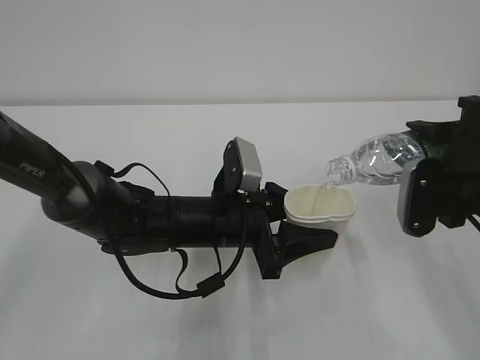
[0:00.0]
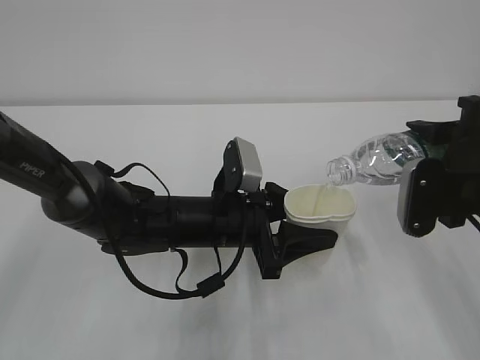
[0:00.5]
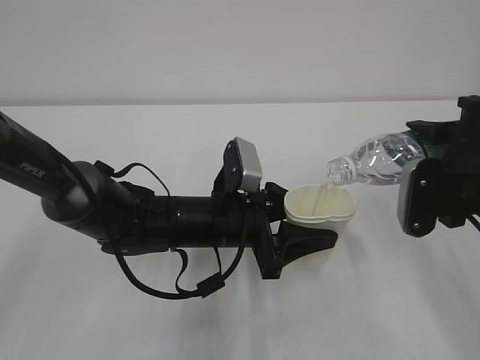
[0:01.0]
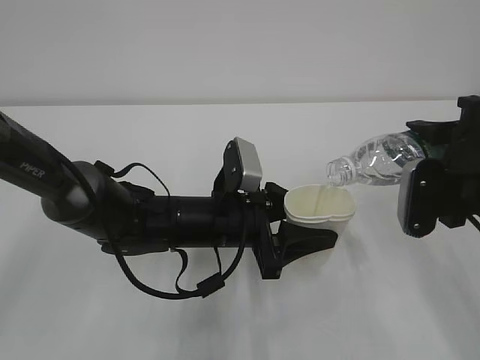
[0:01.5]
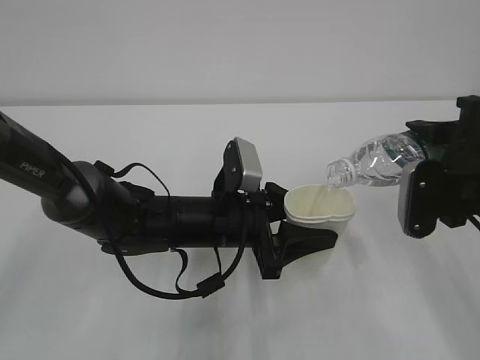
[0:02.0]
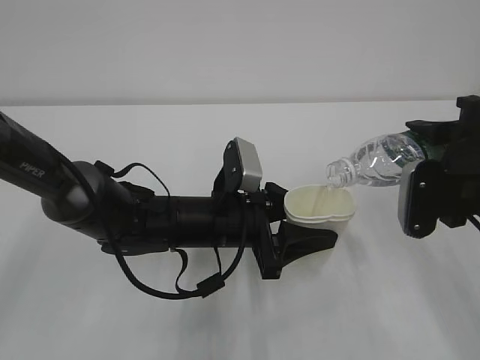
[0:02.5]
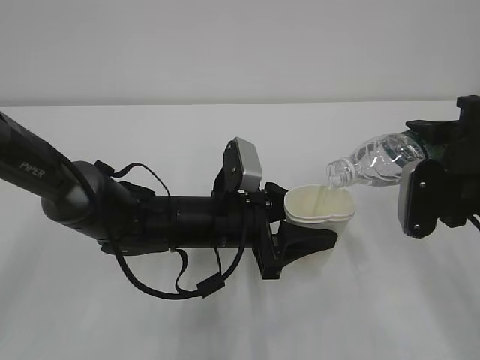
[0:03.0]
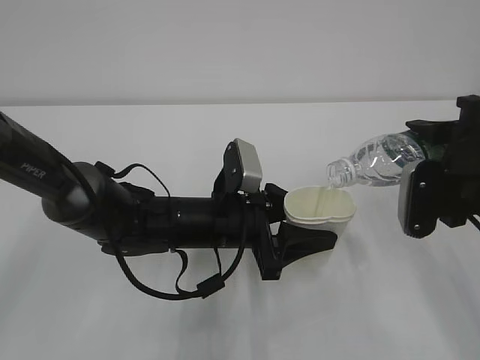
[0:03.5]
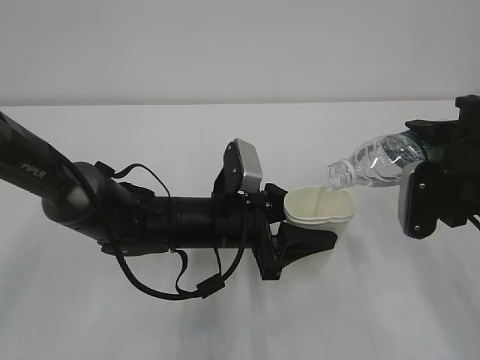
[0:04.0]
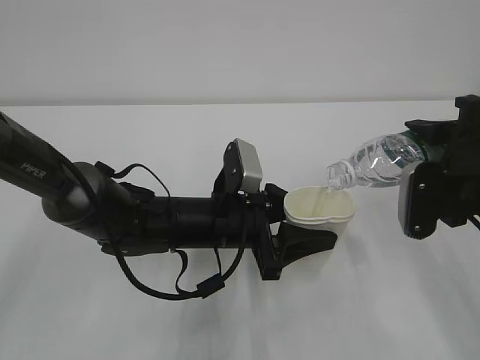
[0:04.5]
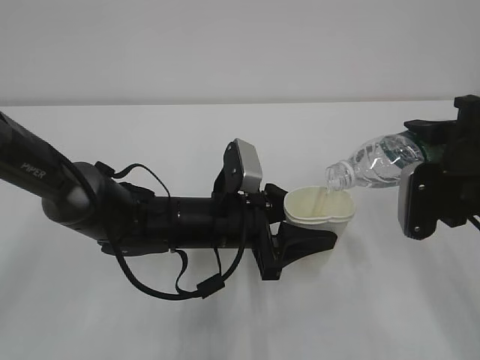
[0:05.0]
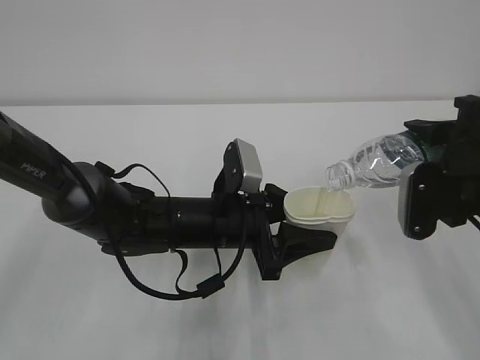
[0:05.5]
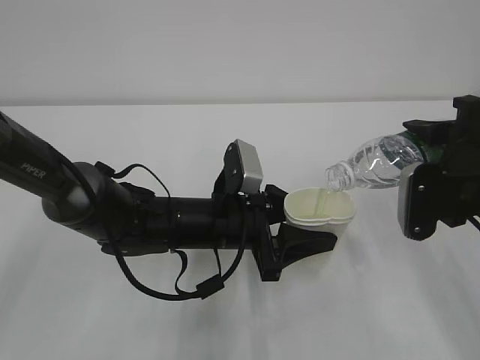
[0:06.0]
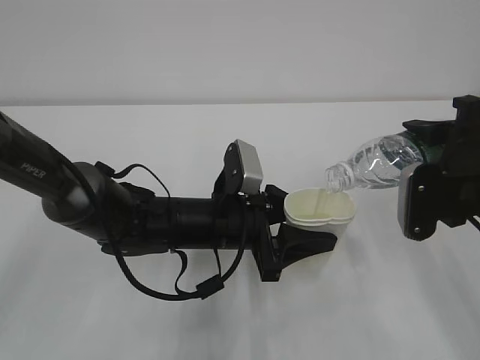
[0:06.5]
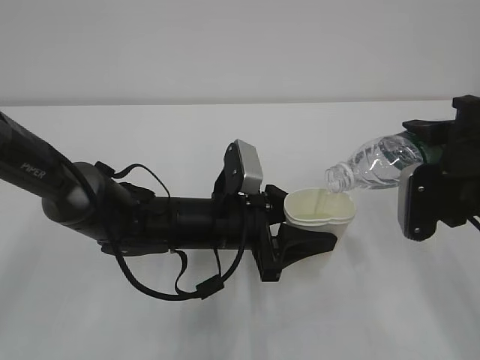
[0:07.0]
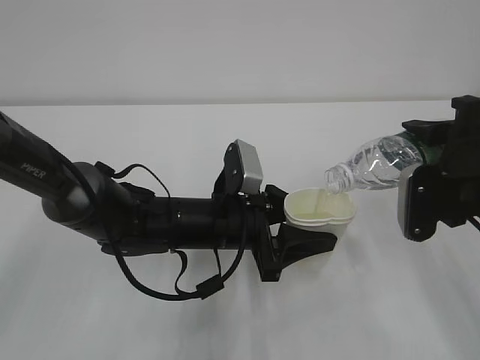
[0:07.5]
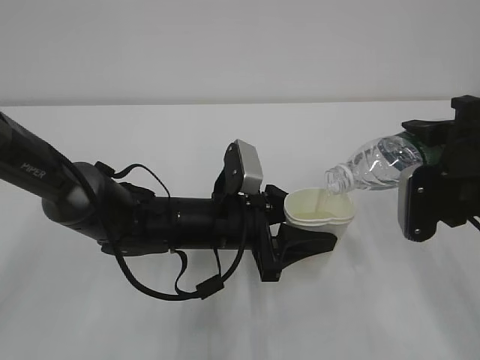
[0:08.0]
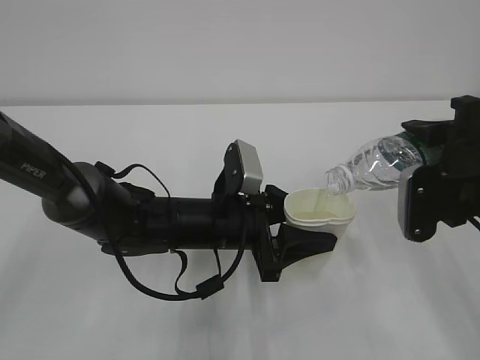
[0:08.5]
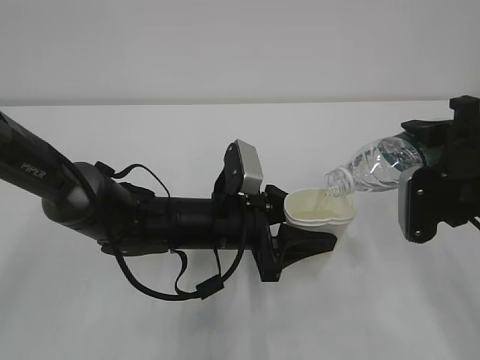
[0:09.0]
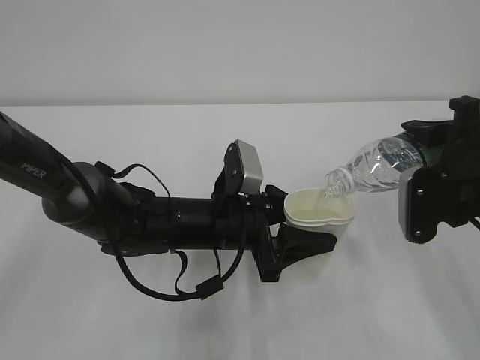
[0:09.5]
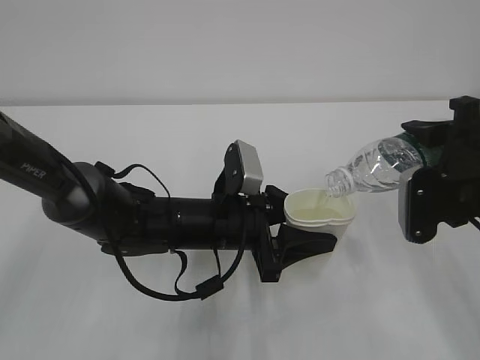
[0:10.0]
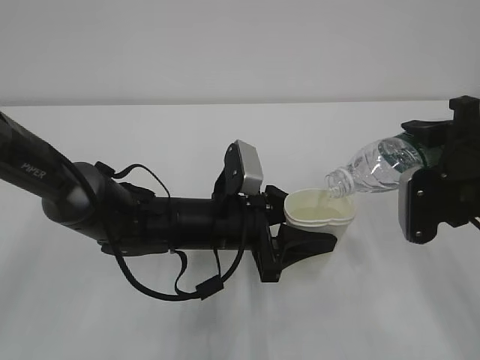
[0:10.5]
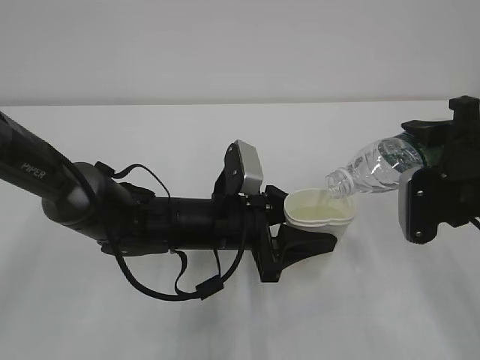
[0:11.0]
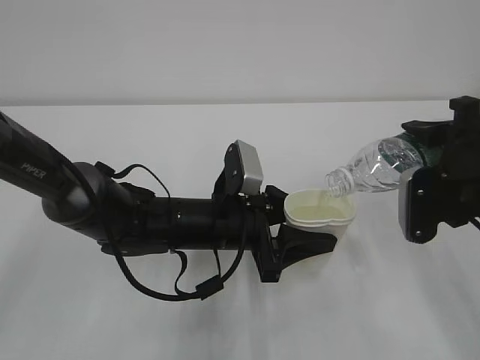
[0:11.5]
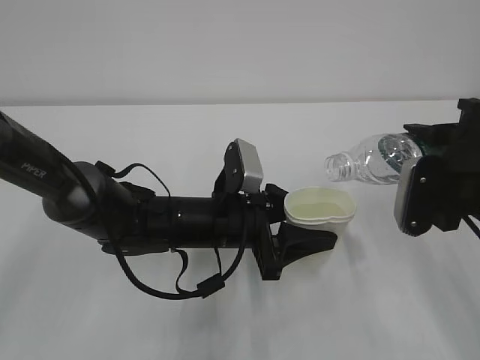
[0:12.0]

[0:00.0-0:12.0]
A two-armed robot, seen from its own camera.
0:00.0 to 0:08.0: Both grippers stay put.
0:08.0 to 0:10.0: Both grippers stay put.
0:10.0 to 0:12.0: The grippers make only small movements.

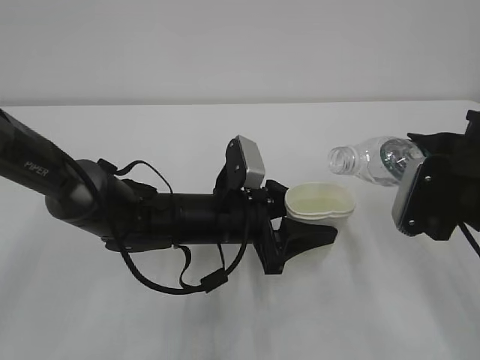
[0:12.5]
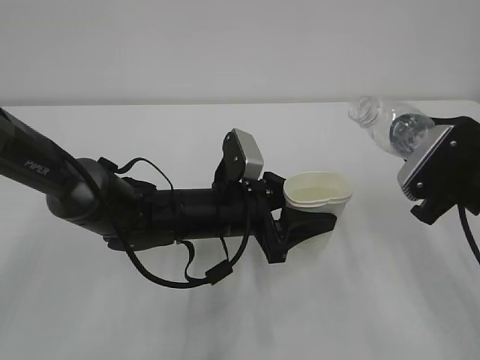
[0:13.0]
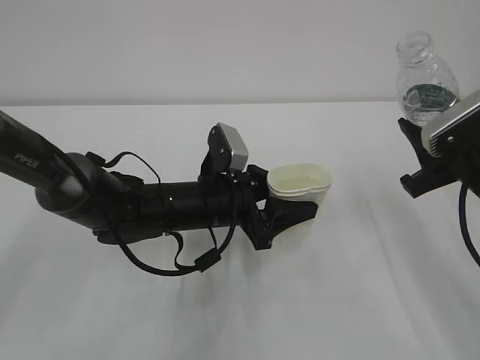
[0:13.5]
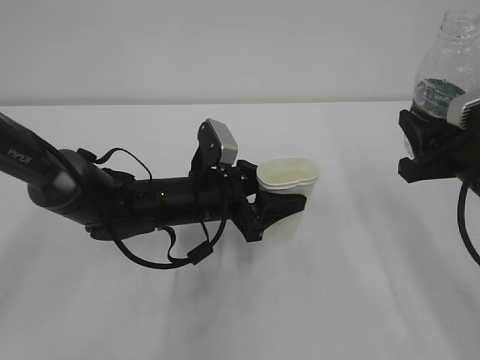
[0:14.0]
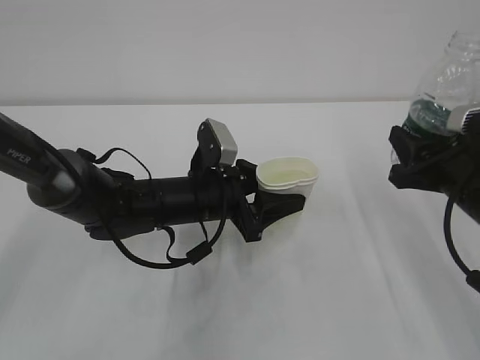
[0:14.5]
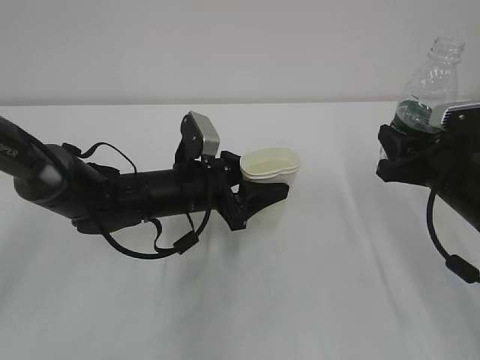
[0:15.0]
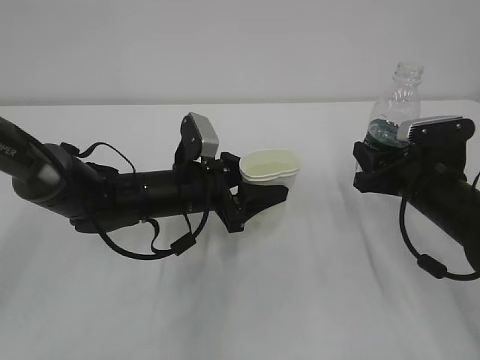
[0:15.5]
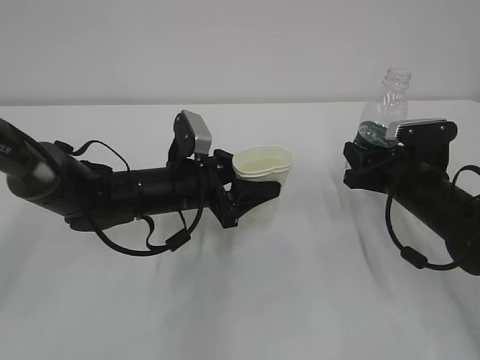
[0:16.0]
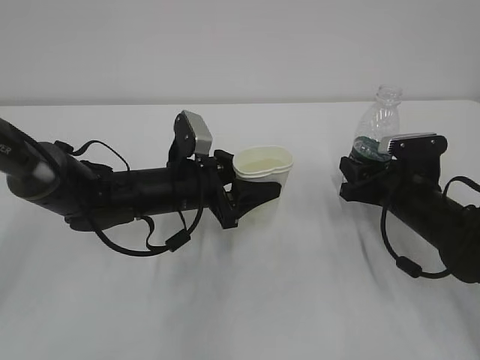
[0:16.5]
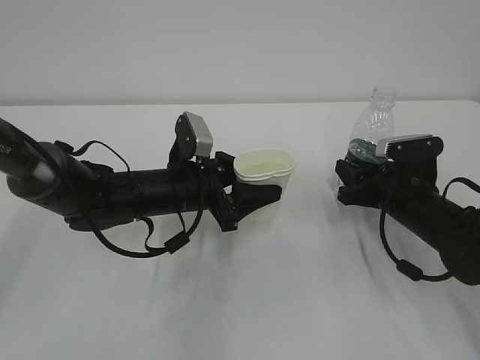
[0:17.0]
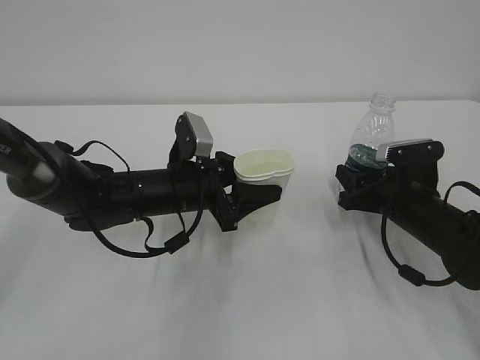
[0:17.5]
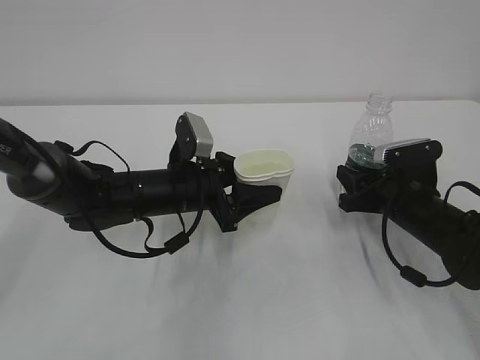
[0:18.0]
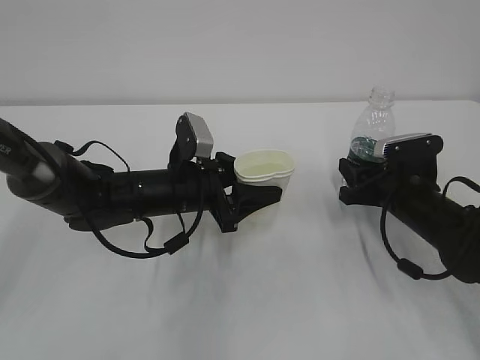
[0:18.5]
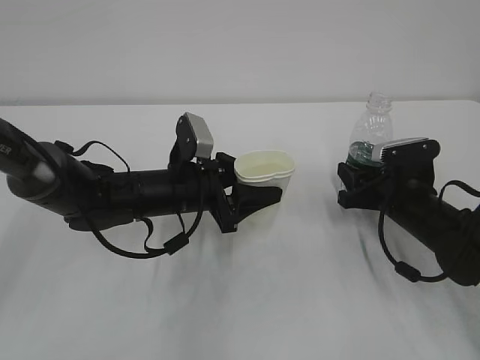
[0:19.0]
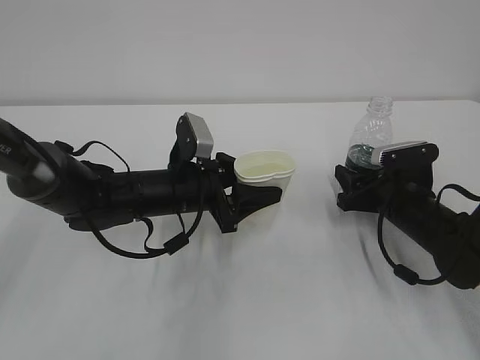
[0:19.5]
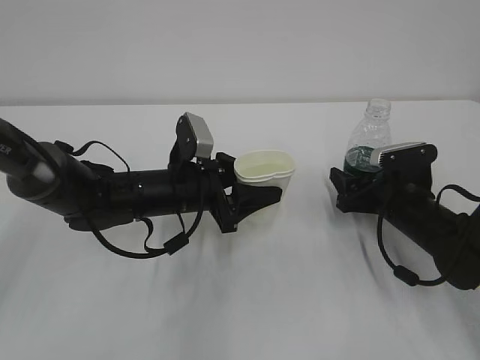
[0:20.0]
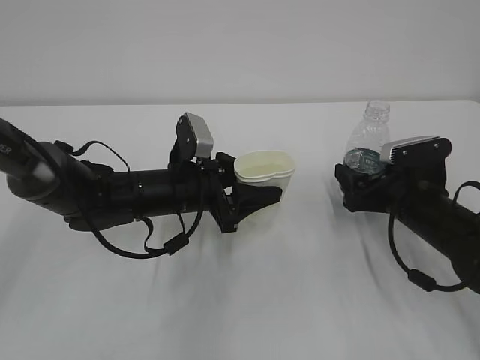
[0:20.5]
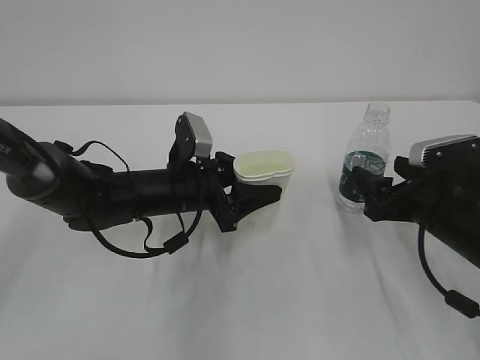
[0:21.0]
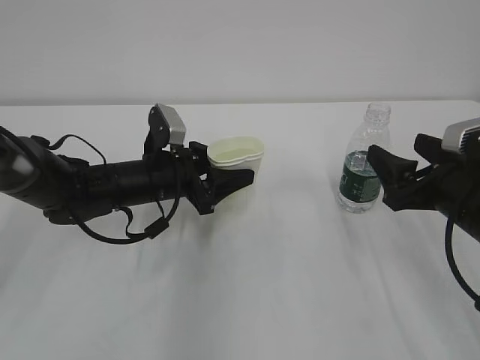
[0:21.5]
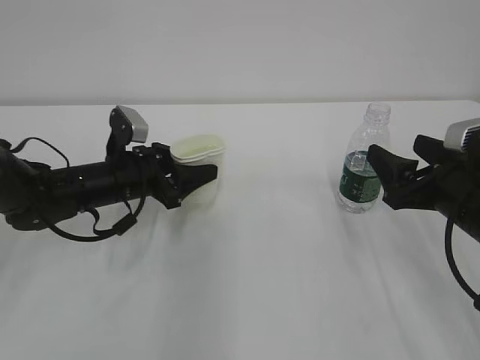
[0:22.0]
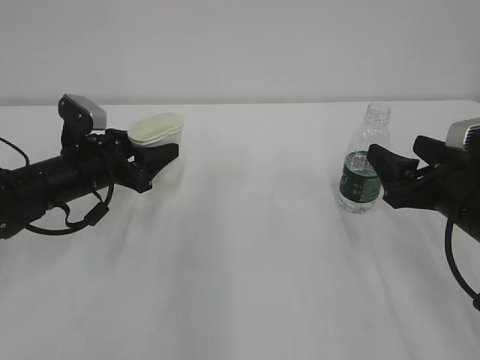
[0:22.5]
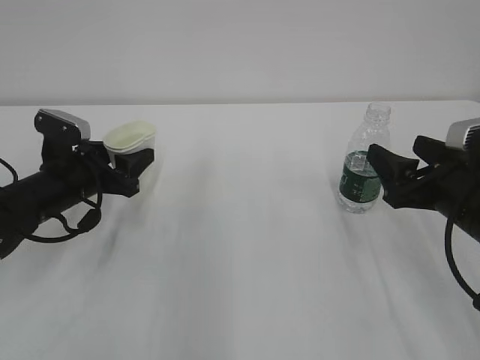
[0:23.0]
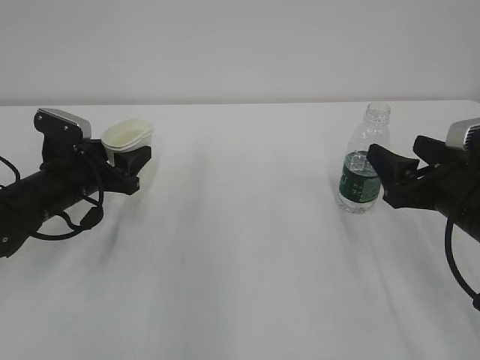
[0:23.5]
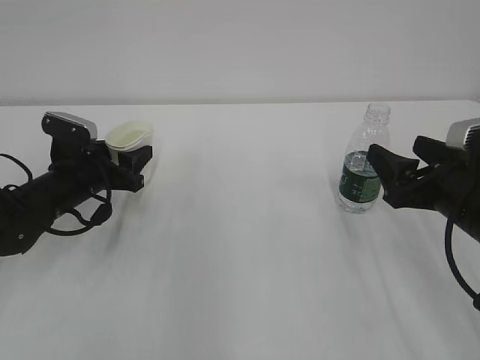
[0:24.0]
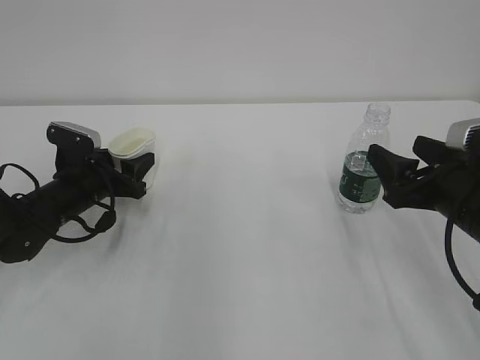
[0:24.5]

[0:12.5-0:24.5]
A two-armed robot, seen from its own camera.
0:14.5 to 0:16.5: The right gripper goes approximately 10 cm downward and forward.
0:16.5 to 0:18.5: Neither gripper changes place.
0:18.5 to 0:20.5: The right gripper opens up.
0:20.5 to 0:22.5: The left gripper shifts some 10 cm to the left, while the right gripper moves upward and backward, some 10 cm.
0:22.5 to 0:24.5: The left gripper moves approximately 5 cm.

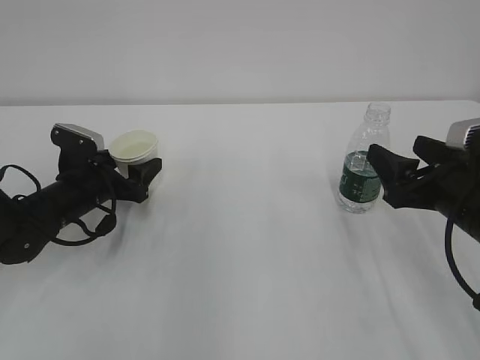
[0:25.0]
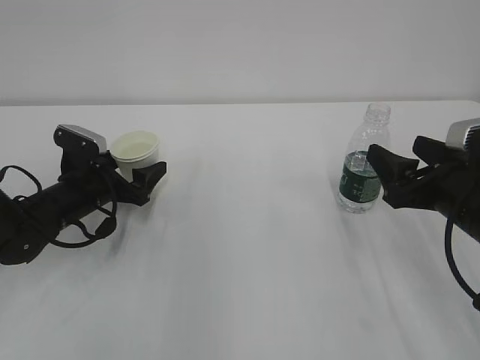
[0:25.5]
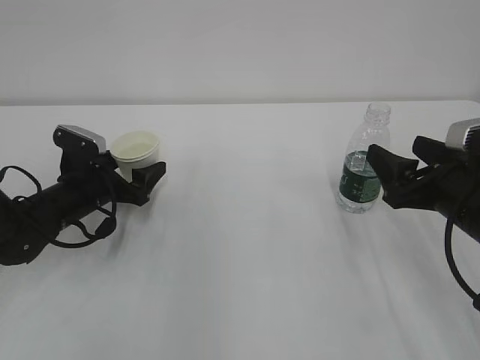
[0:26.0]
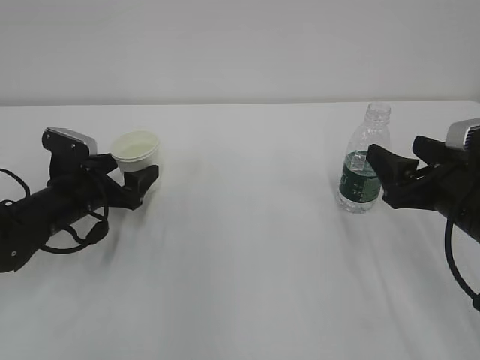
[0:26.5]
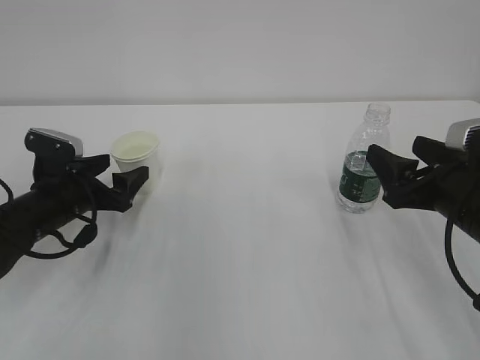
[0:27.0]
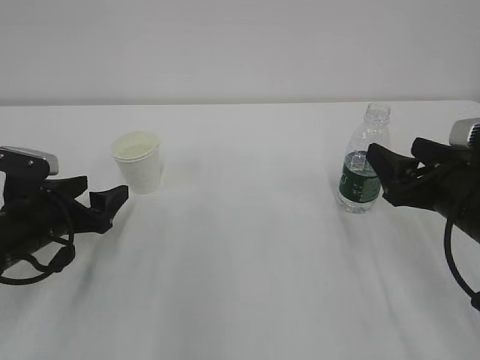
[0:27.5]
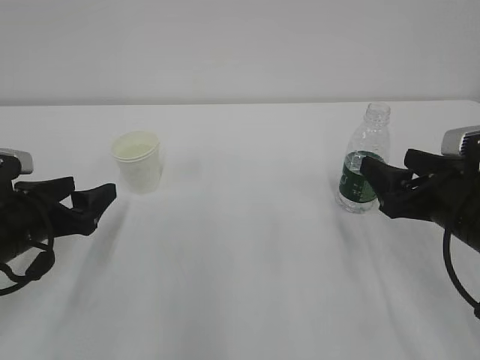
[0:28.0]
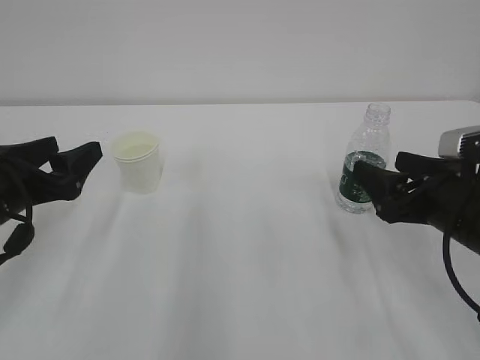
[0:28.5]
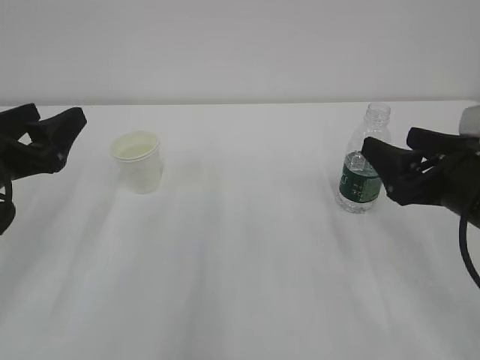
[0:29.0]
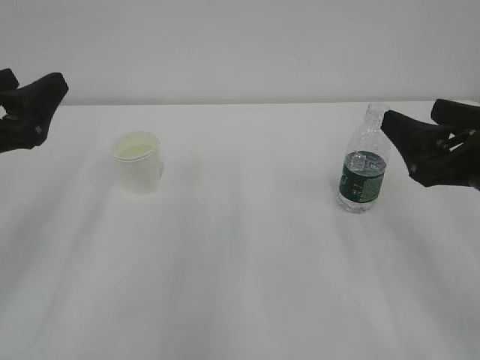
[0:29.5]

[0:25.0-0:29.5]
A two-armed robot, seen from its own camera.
0:25.0 to 0:27.0: The grippers stay close to where they were, moving slightly.
0:27.0 to 0:29.5: The right gripper travels upward by about 5 cm. Meanwhile the left gripper moves upward and backward, approximately 20 cm.
